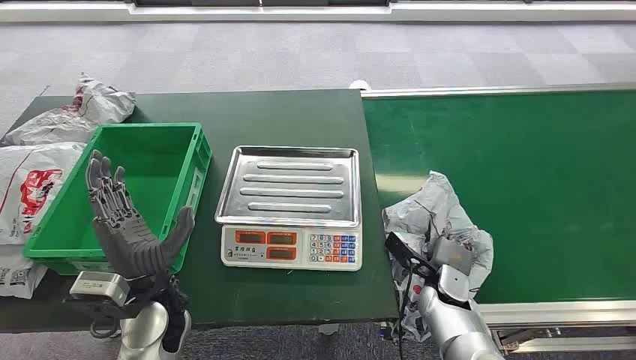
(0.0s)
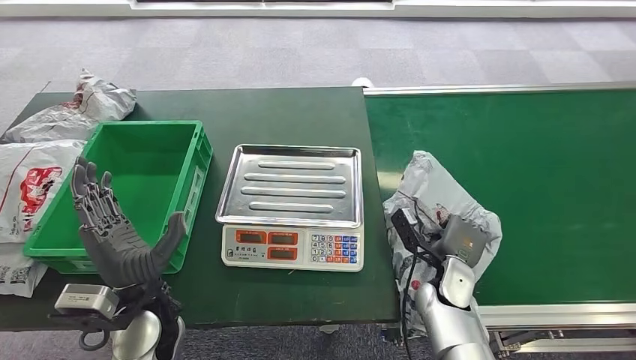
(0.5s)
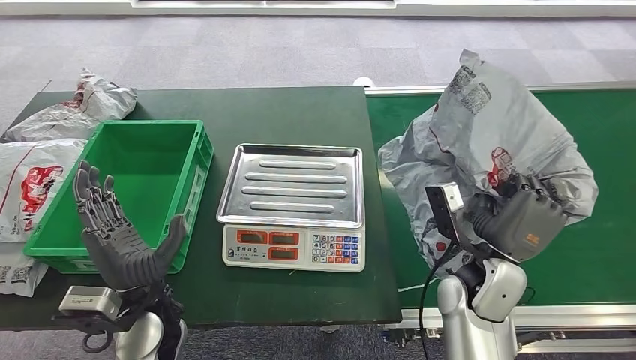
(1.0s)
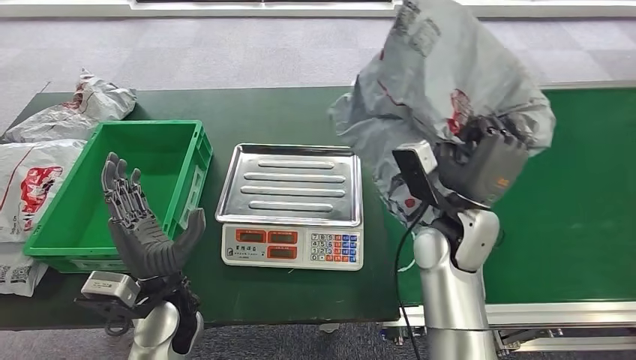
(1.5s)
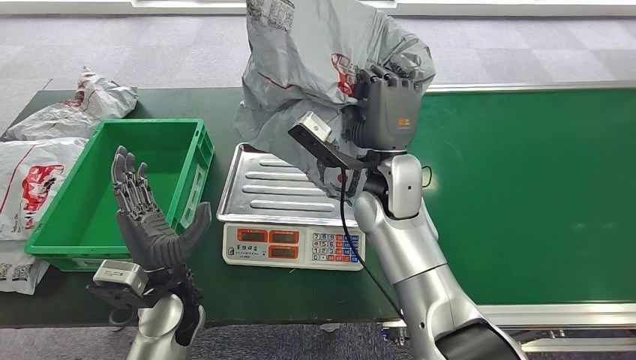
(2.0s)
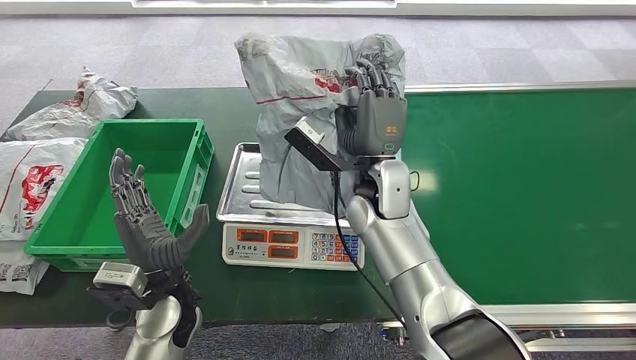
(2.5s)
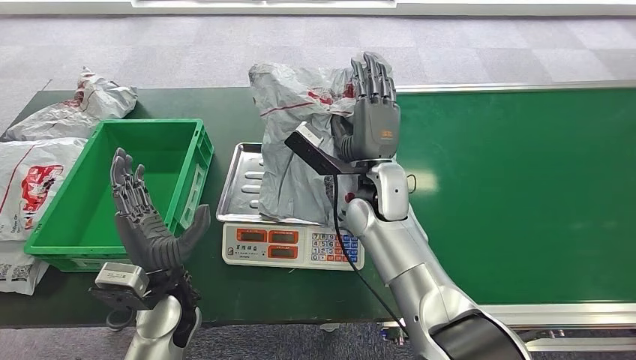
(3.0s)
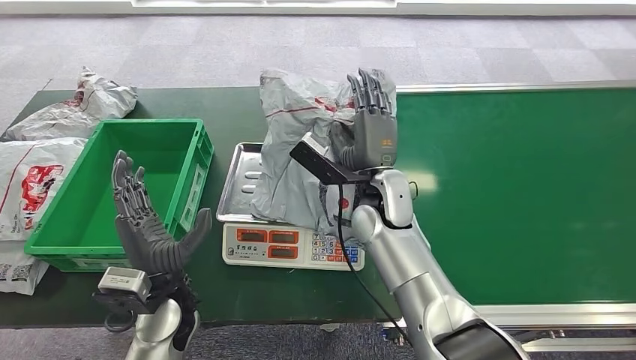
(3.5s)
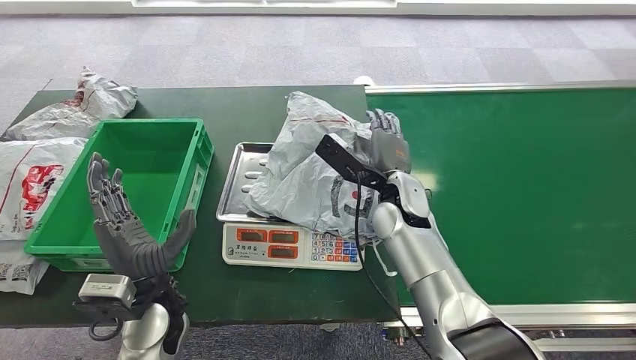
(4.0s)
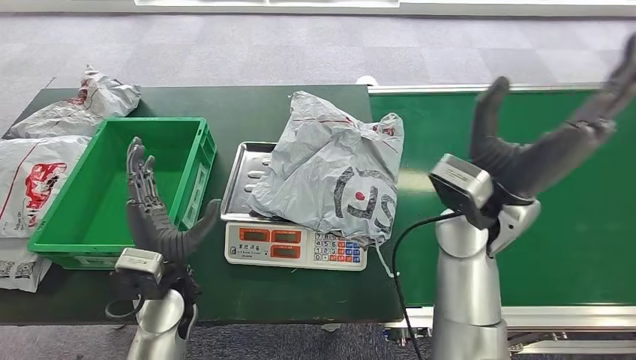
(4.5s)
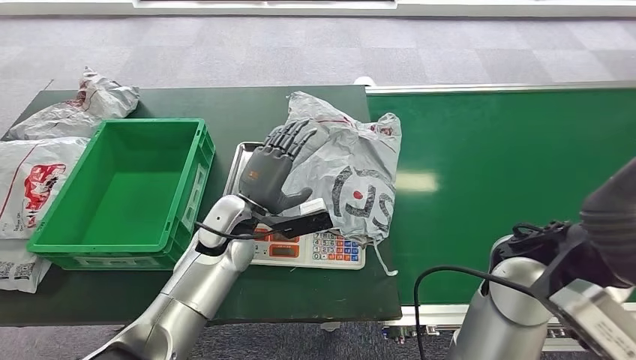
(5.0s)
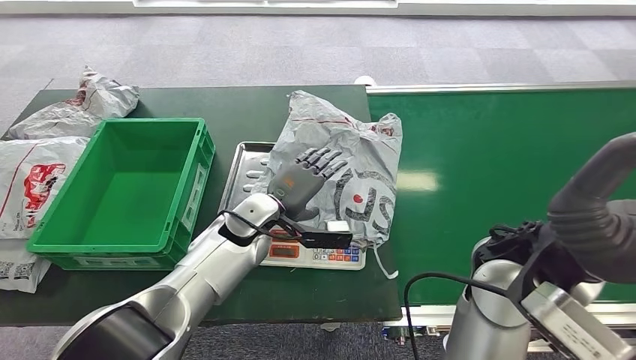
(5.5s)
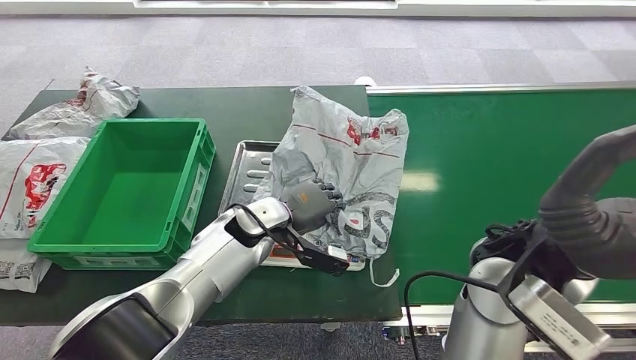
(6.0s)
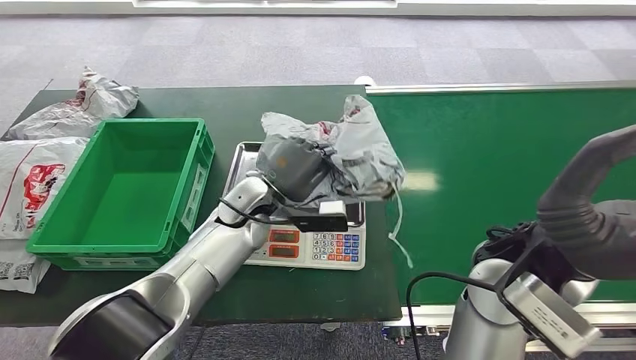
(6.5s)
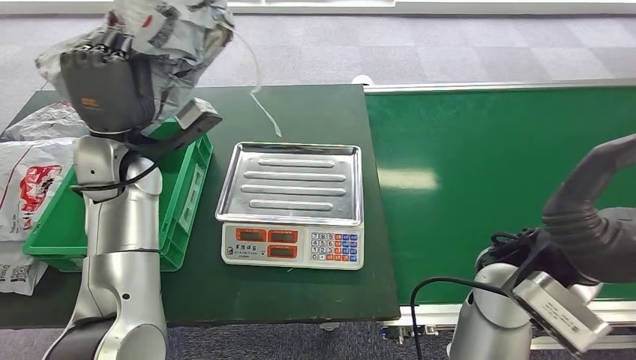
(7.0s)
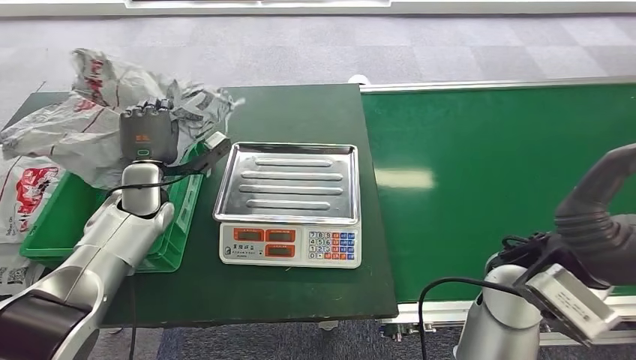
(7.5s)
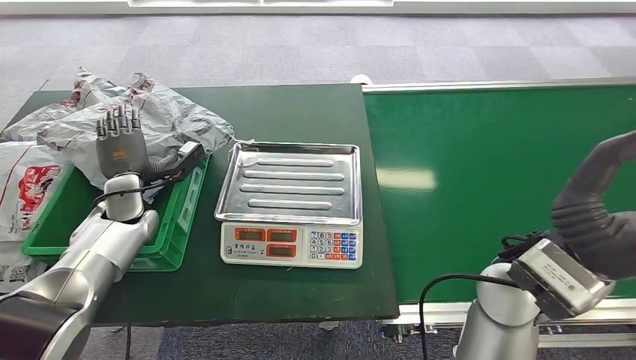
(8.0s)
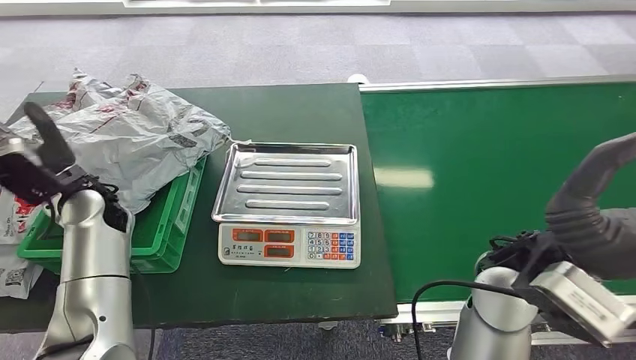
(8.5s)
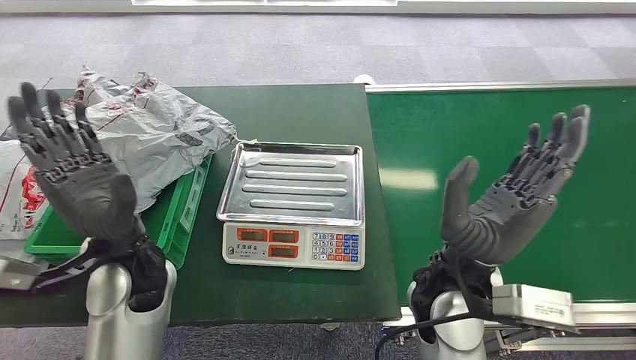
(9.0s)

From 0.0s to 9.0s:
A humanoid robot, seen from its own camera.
Task of the whole recording: Weigh the package on the weighing device and place it in the left basket.
Step, from 0.0s to 1.0s: Pick up the package from the conveyor belt.
Step, from 2.0s to 6.0s: Place the package onto the inbound machine.
Step, from 6.5s to 7.0s: Pick up the package from the inbound machine.
Step, from 8.0s to 9.0s: Place the package into the parcel locker.
